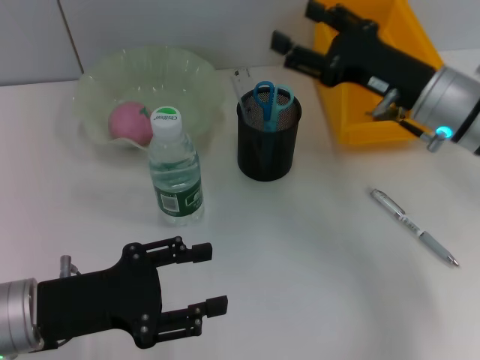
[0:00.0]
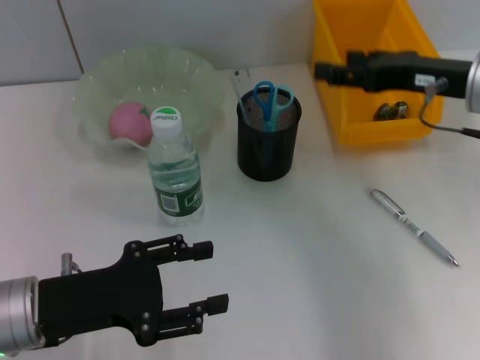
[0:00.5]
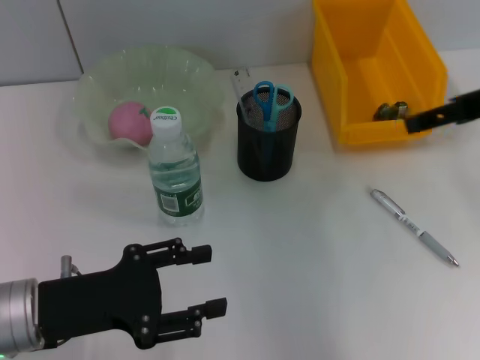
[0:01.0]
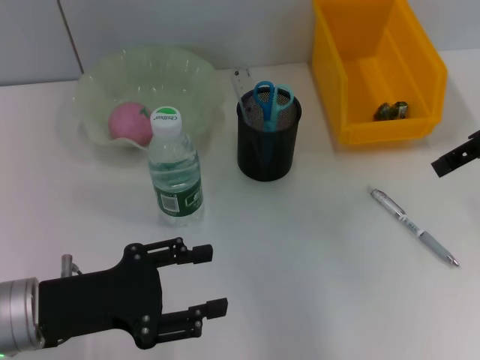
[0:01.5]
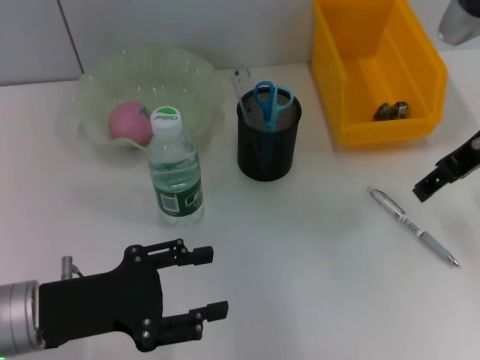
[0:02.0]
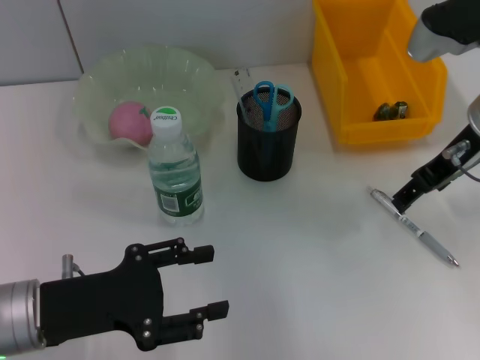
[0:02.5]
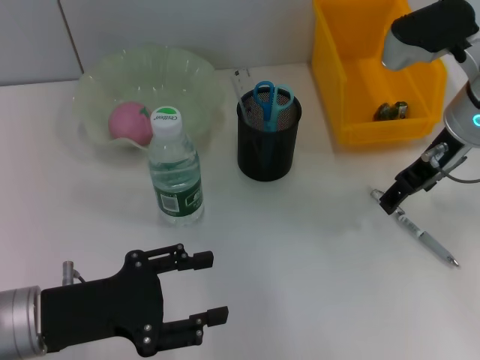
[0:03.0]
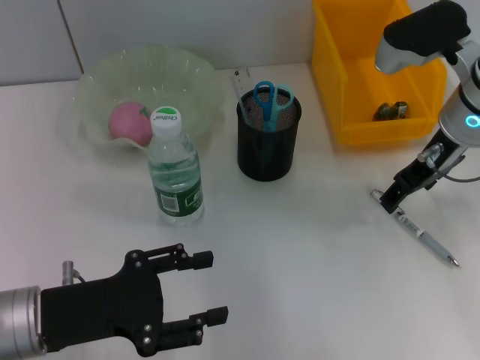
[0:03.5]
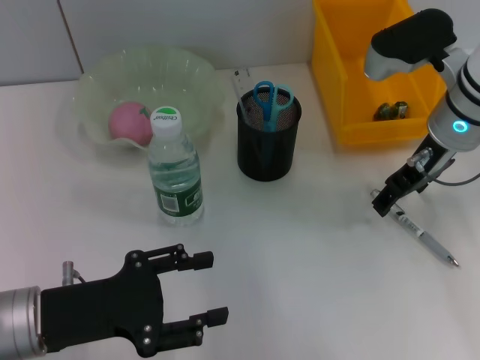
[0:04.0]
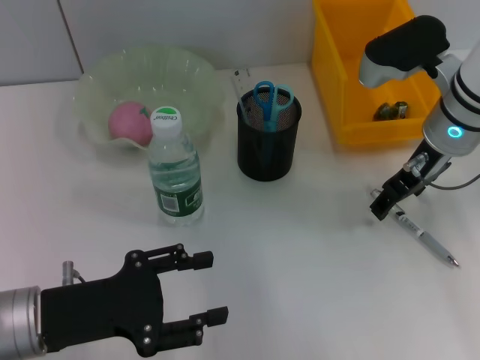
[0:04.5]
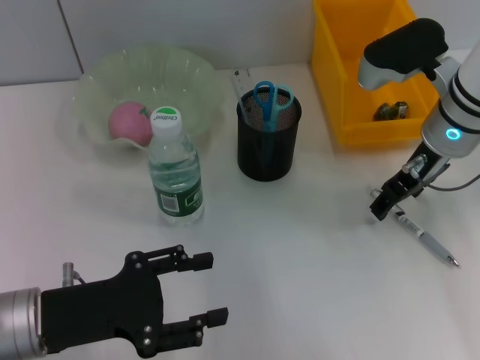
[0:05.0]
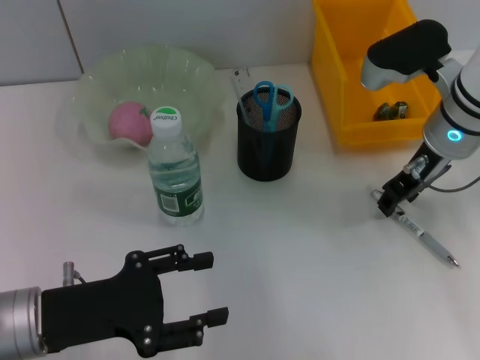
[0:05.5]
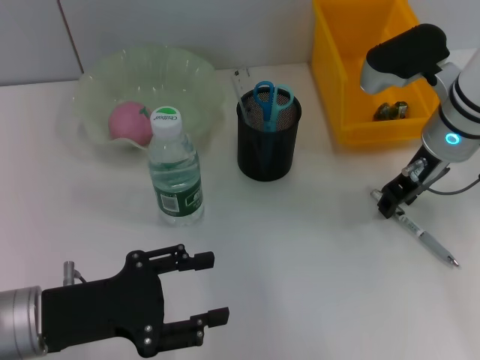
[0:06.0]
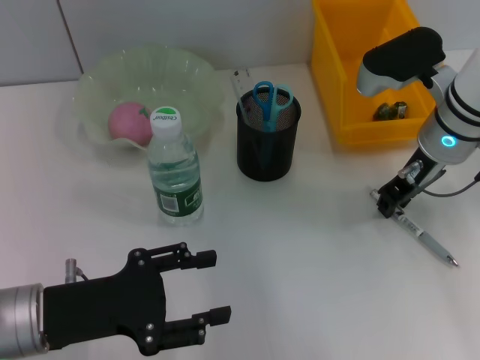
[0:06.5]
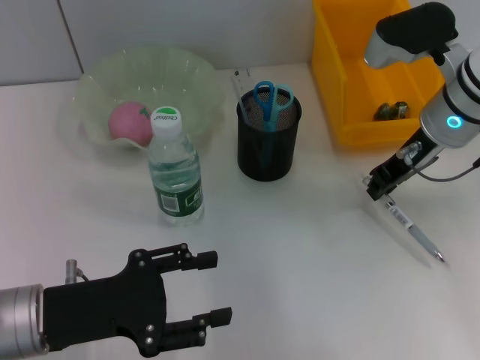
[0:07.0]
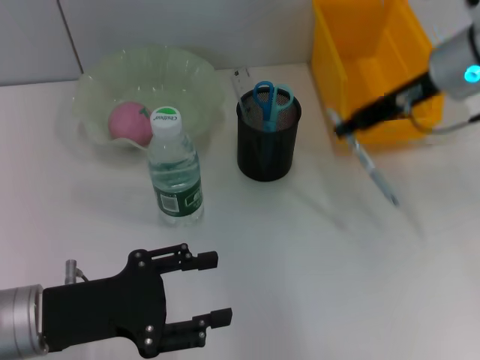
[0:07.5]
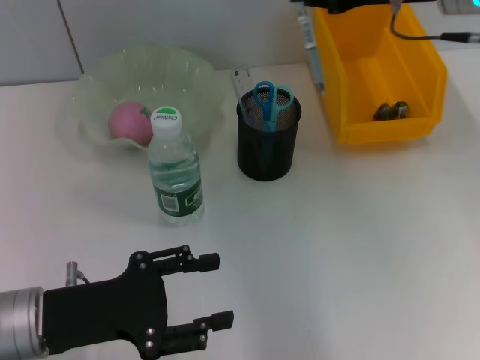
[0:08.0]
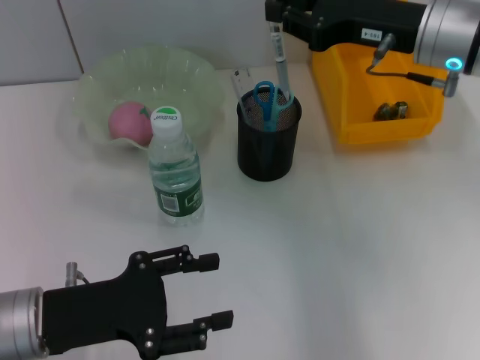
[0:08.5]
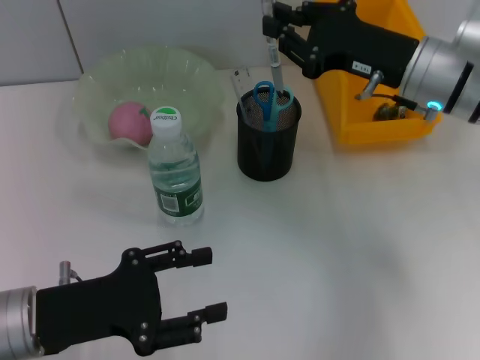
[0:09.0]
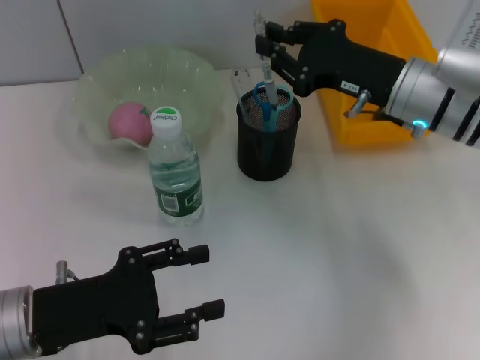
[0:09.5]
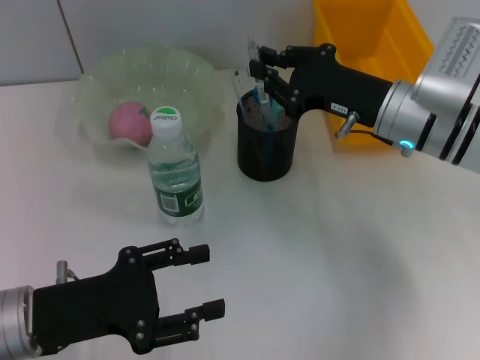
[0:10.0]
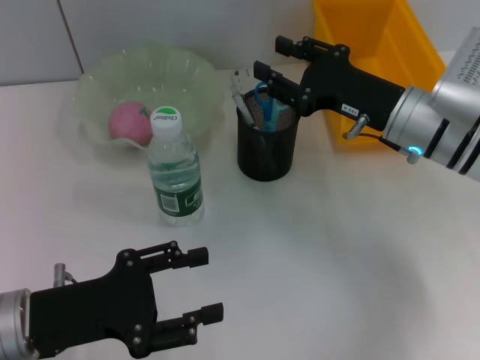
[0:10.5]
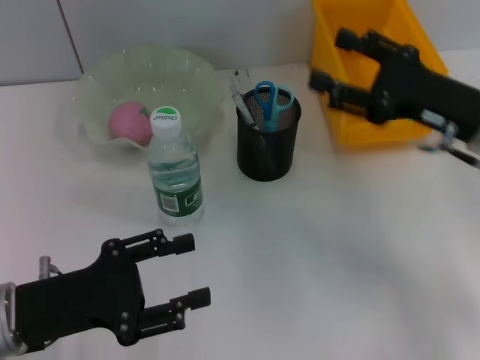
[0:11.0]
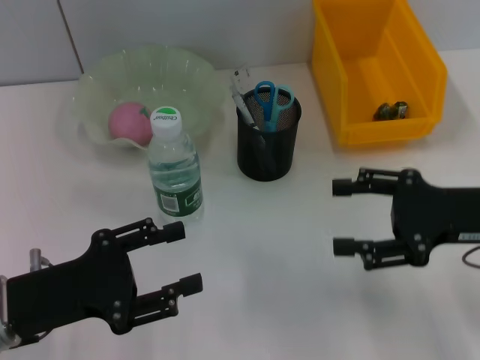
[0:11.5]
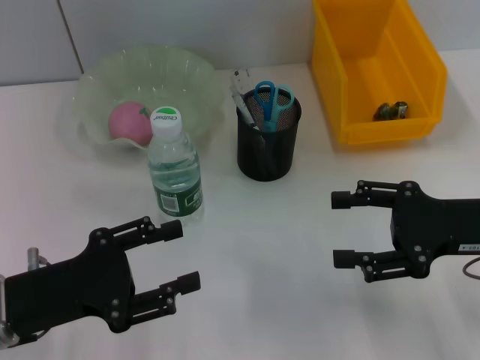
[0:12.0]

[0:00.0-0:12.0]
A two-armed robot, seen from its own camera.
Step, 0:00.0 to 0:06.0: Grab the gray spring-action pen with the right hand.
Step, 0:07.0 to 0:10.0: Place the gray spring-action pen into the pen holder with the right hand.
0:00.0 to 0:02.0: The right gripper shifts roughly 10 cm upward.
0:02.0 to 0:04.0: The right gripper moves downward, roughly 5 cm.
0:04.0 to 0:06.0: The right gripper closes up.
0:06.0 to 0:08.0: The right gripper moves upward, roughly 10 cm, and closes up.
0:08.0 to 0:10.0: The right gripper goes approximately 15 cm downward.
0:10.0 to 0:12.0: The right gripper travels backward and to the right by about 15 cm, and opens up.
